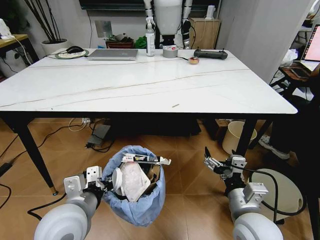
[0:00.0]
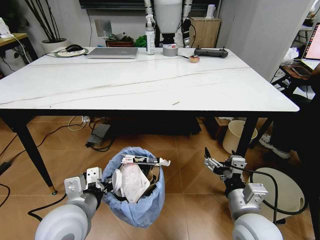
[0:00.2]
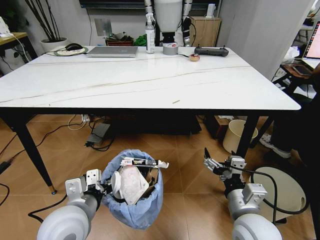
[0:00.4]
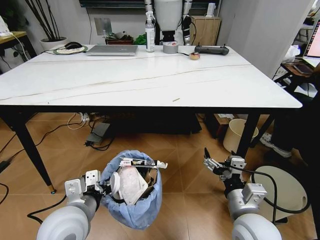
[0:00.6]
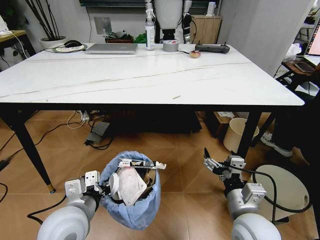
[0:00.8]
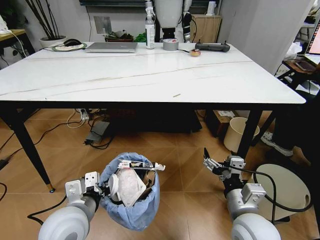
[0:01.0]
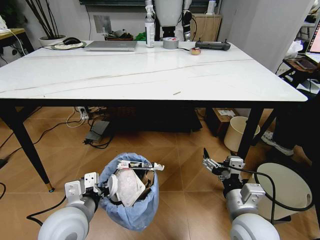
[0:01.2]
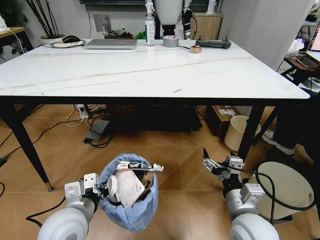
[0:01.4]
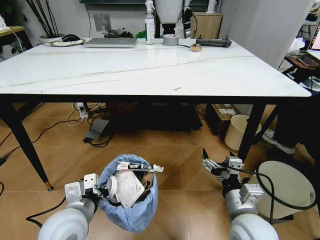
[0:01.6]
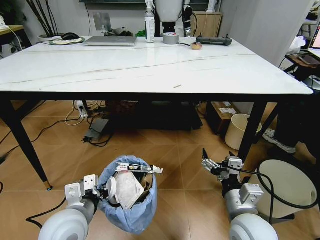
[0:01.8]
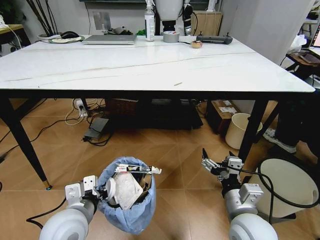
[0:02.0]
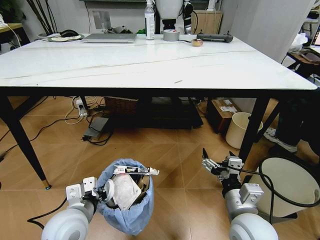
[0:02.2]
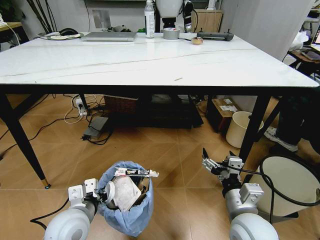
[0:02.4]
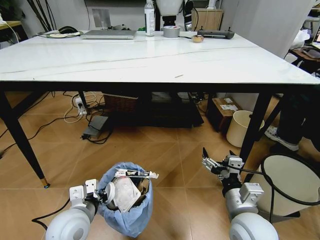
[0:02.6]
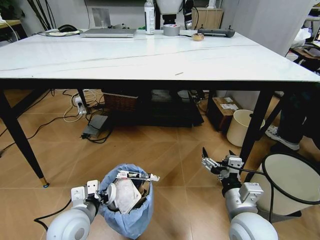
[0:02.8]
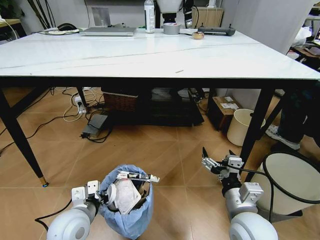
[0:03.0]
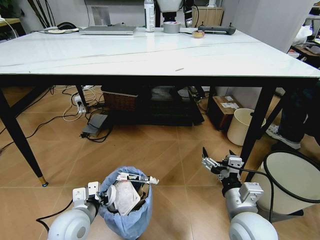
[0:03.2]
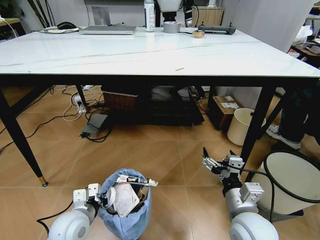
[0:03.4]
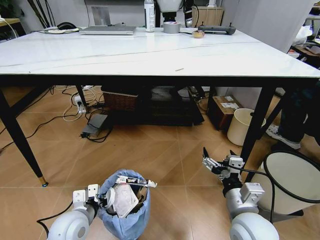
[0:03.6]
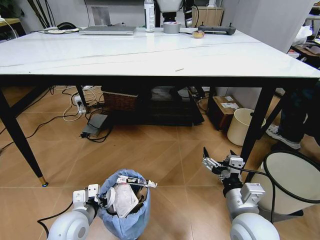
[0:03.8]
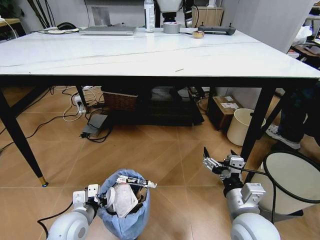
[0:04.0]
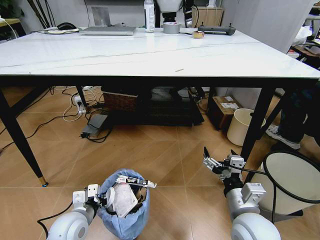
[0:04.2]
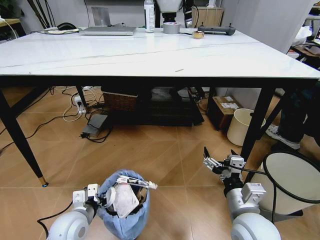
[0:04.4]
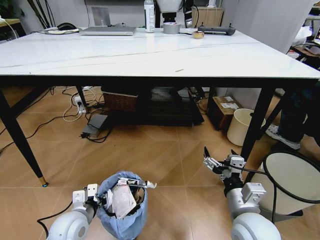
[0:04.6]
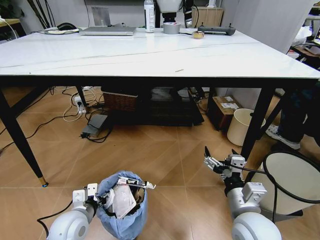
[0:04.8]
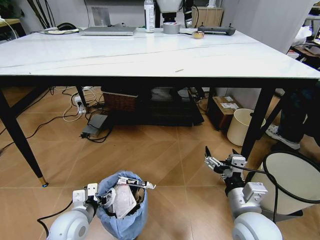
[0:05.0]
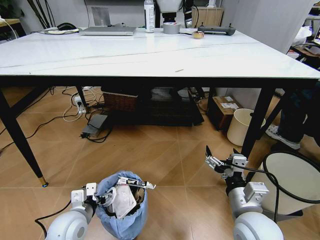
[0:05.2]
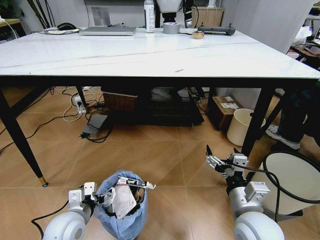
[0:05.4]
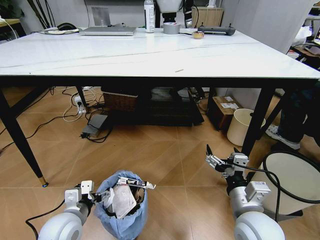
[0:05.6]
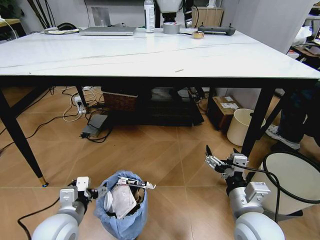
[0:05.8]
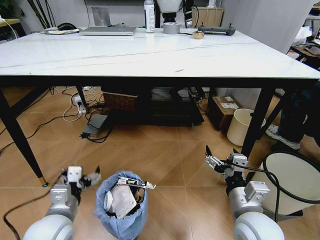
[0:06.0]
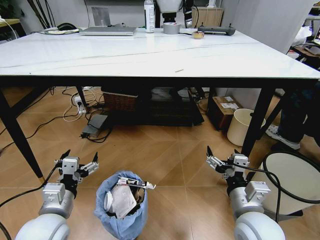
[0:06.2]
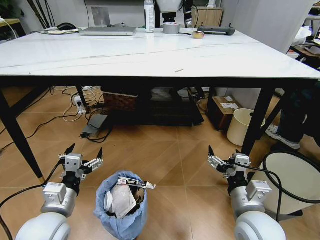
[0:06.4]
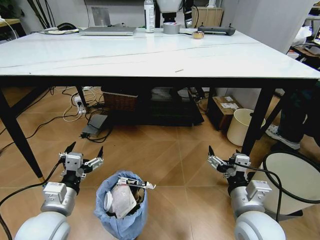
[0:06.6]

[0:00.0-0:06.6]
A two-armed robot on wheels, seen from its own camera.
Task of the whole recording: Pick up the trash bin and place the trash from the table into it.
0:01.6 to 0:03.2: The left gripper shifts some 10 cm downward.
0:03.2 to 0:05.0: The left gripper opens up.
0:05.0 to 0:06.6: The left gripper heads upward, covering some 10 cm.
